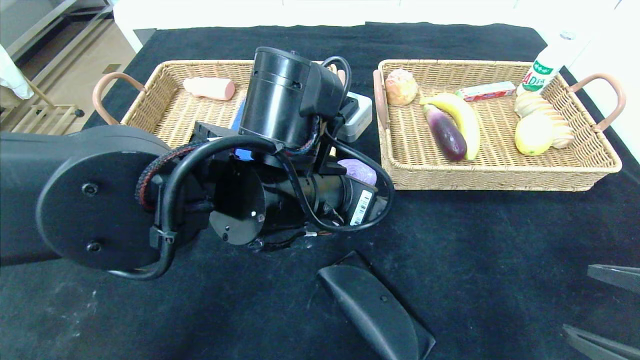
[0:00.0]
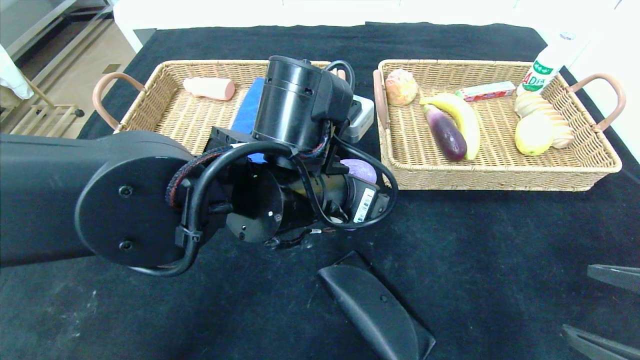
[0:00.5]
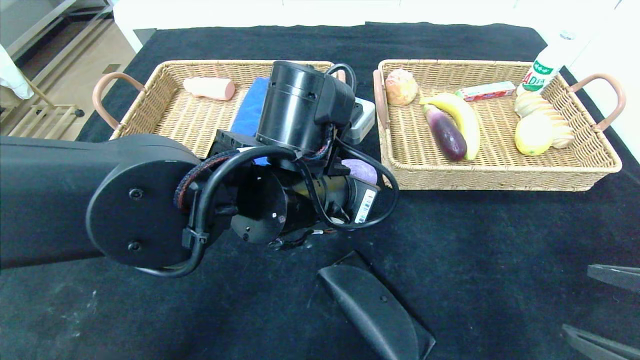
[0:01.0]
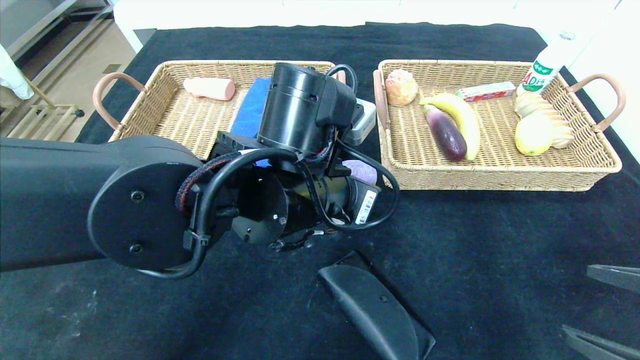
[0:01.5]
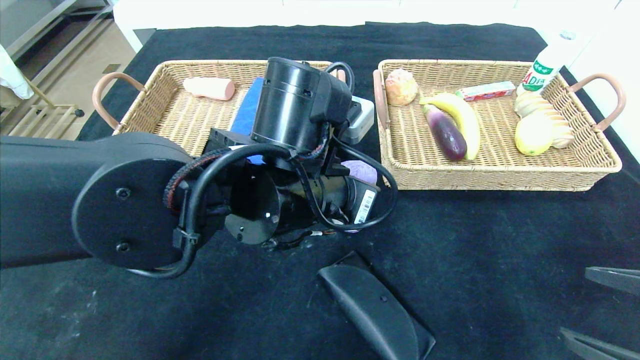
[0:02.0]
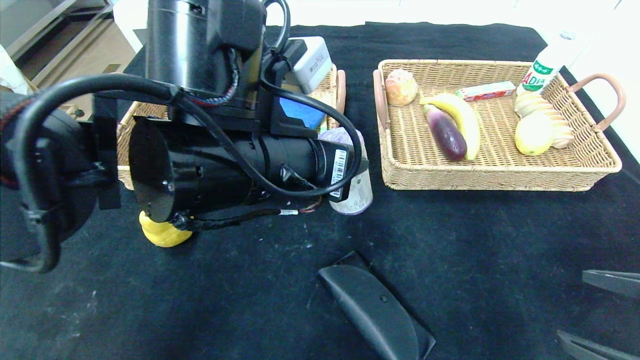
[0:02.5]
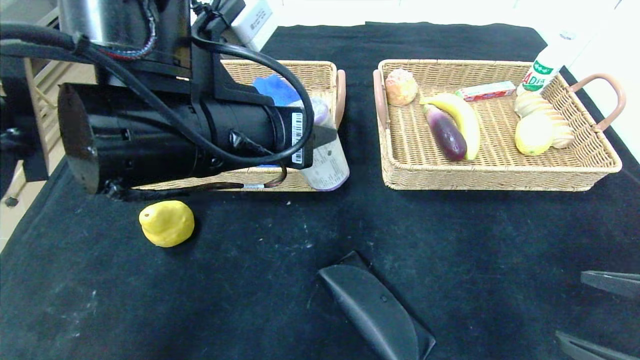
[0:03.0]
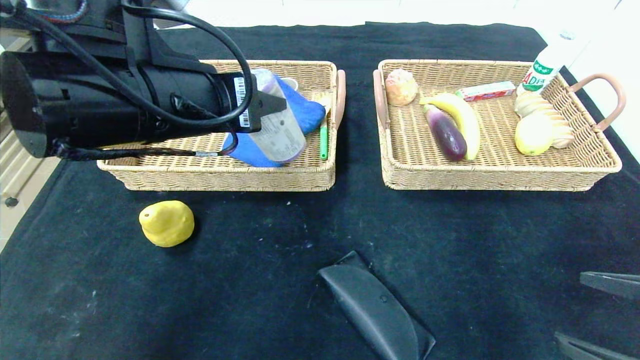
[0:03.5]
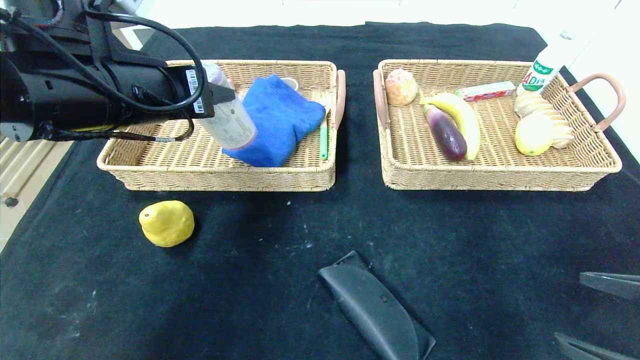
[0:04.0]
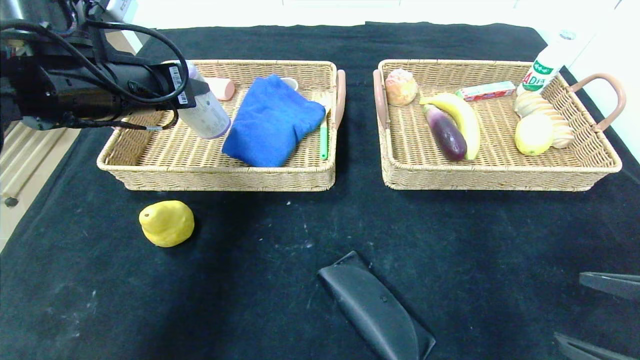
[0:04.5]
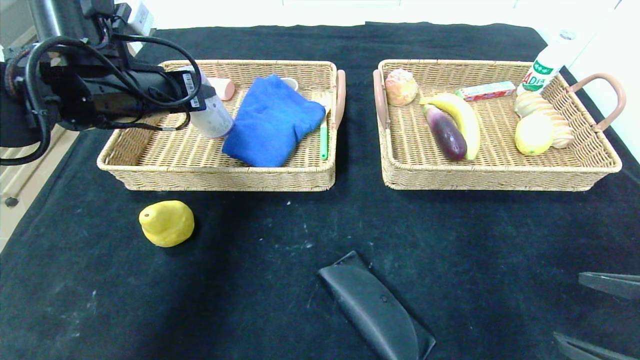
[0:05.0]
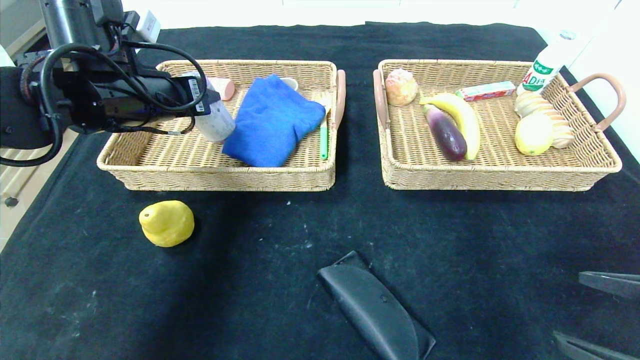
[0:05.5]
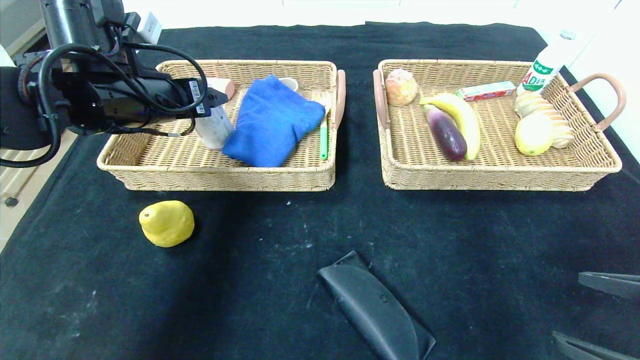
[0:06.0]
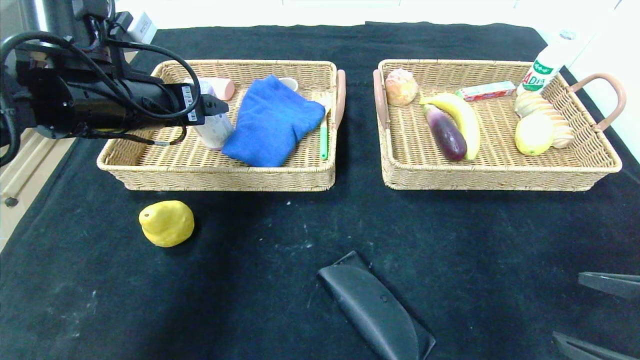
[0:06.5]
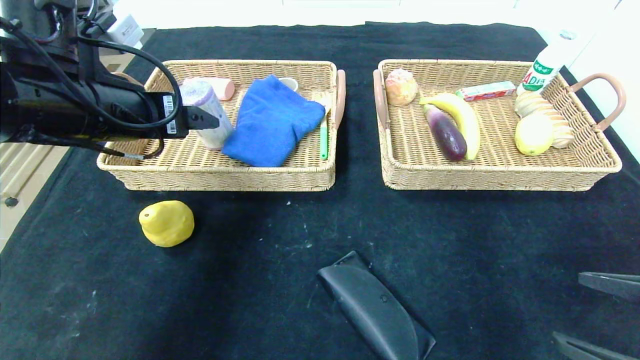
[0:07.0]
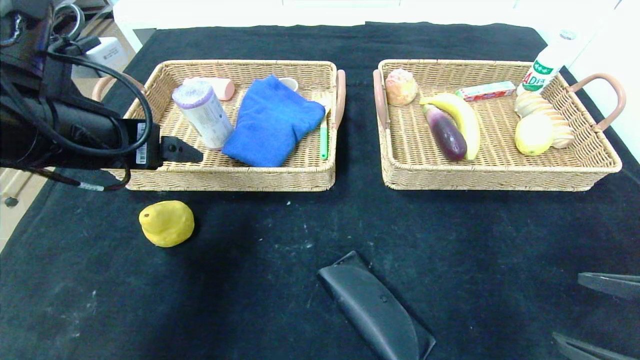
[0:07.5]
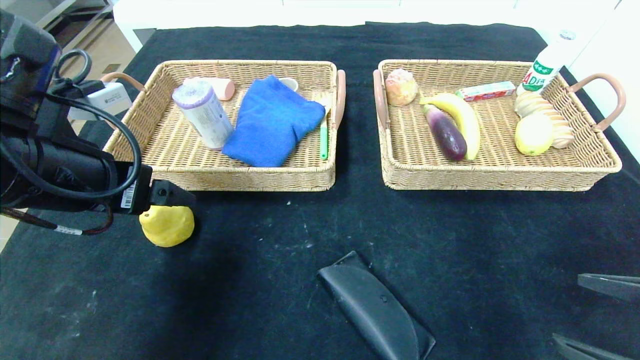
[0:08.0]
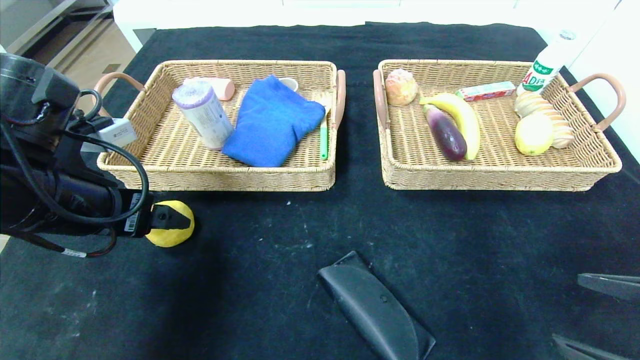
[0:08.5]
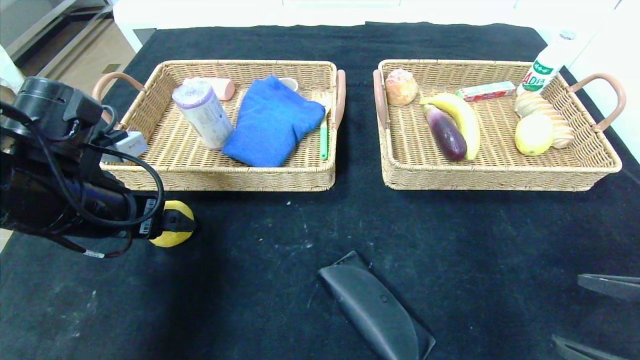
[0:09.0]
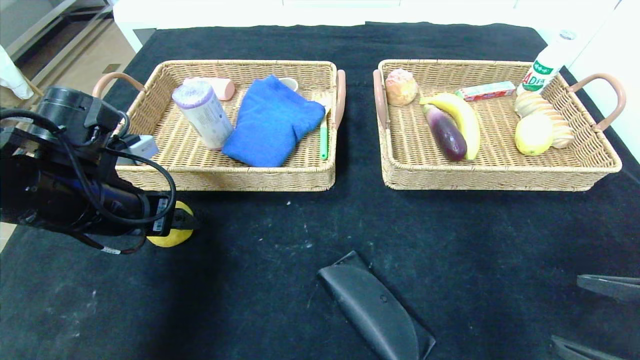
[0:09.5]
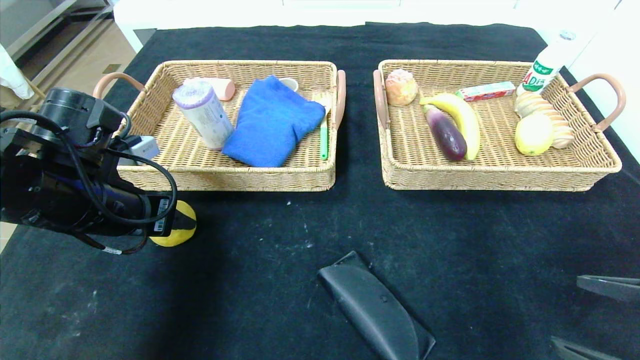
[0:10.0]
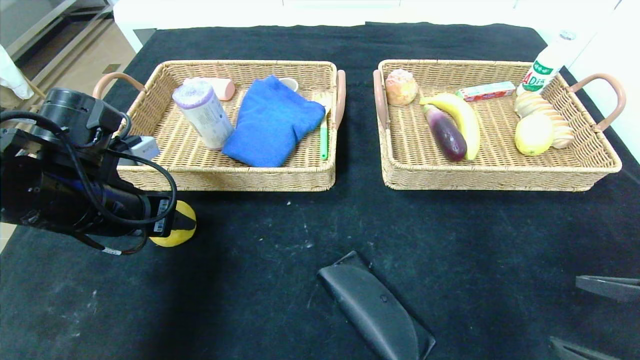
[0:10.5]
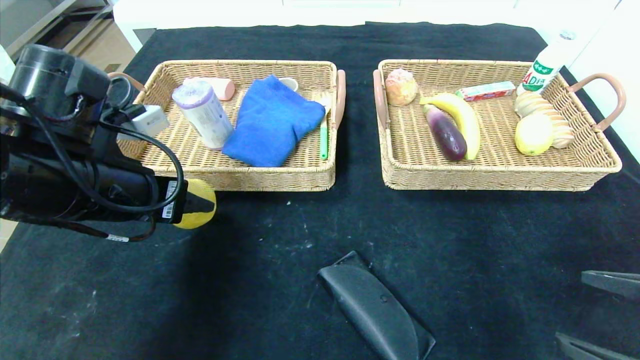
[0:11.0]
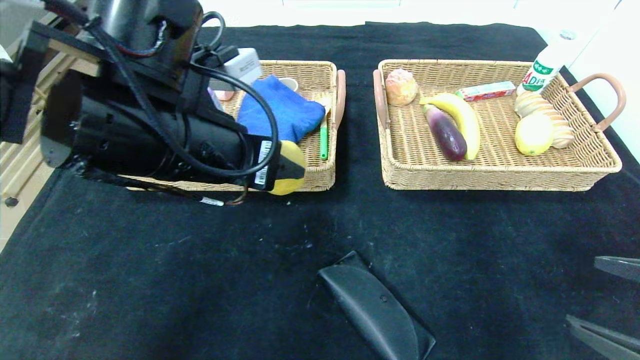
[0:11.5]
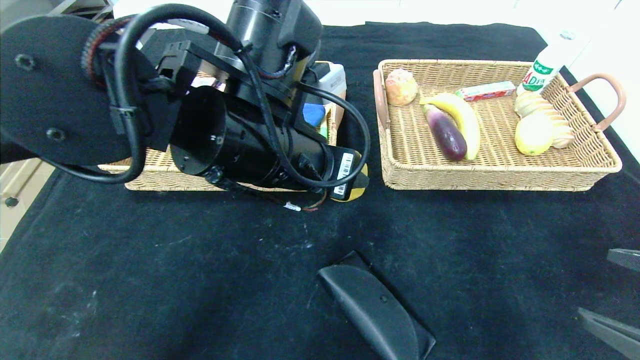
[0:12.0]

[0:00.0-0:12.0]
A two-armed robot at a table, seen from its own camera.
Step, 0:00.0 to 0:07.5: Pick up the purple garbage bag and put it in the left basket.
0:00.0 to 0:02.0: The left gripper closes.
0:02.0 to 0:04.0: The left gripper is displaced to the left and upward by approximately 20 cm.
0:04.0 to 0:06.0: The left gripper travels forward by some 5 cm, and opens up.
0:06.0 to 0:08.0: The left gripper shifts approximately 10 cm backward.
0:08.0 to 0:10.0: The left gripper travels downward by approximately 5 cm, and closes up.
0:10.0 to 0:12.0: The left gripper shifts roughly 20 cm to the right.

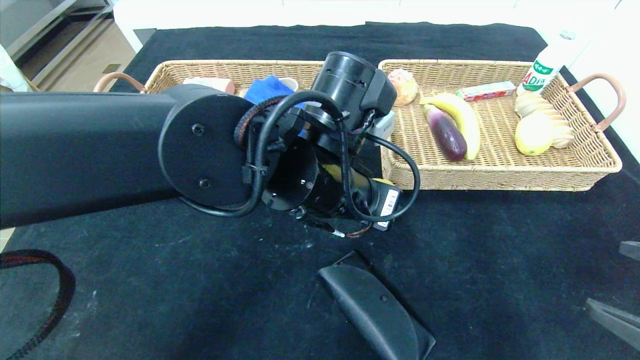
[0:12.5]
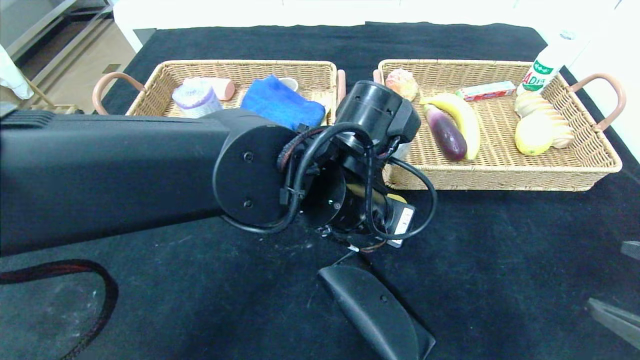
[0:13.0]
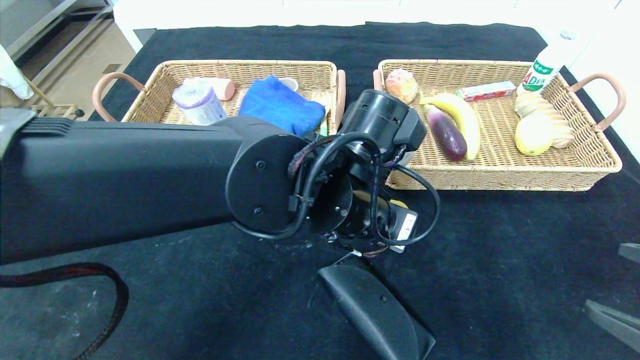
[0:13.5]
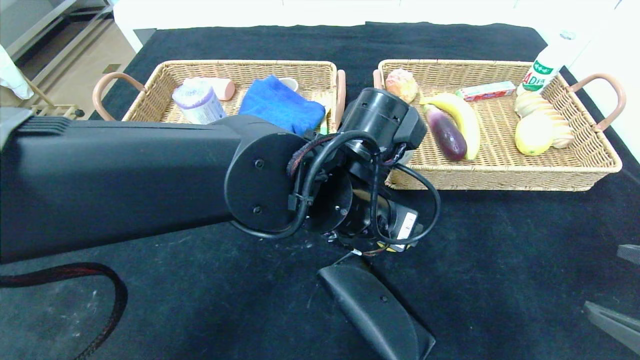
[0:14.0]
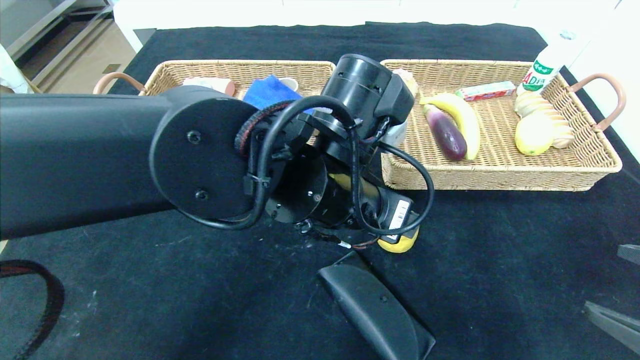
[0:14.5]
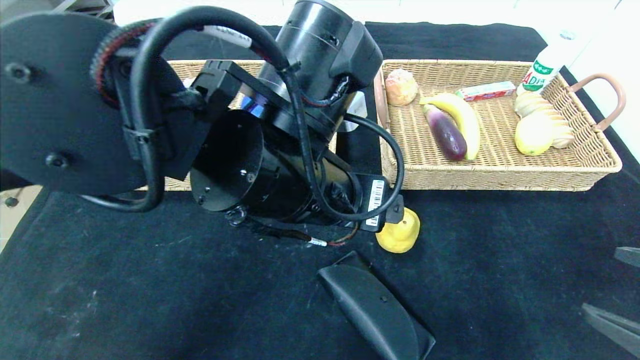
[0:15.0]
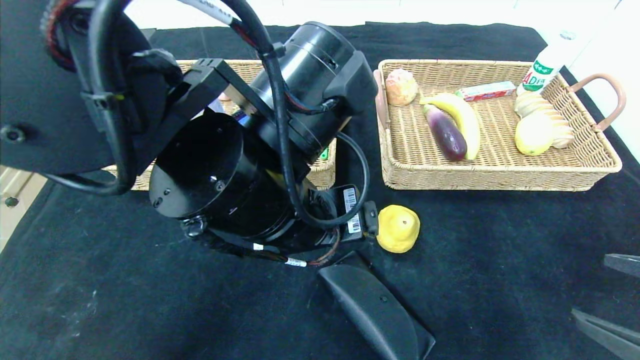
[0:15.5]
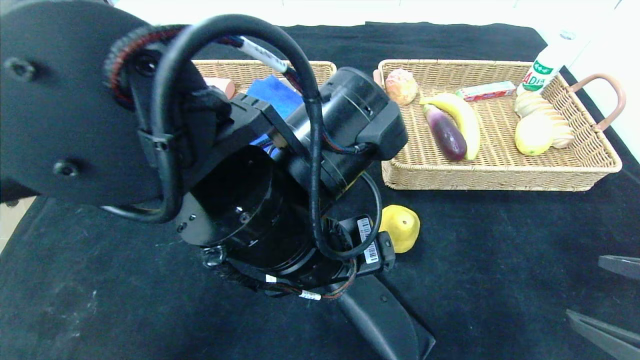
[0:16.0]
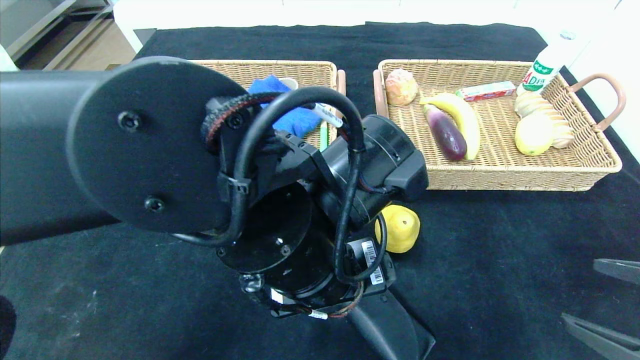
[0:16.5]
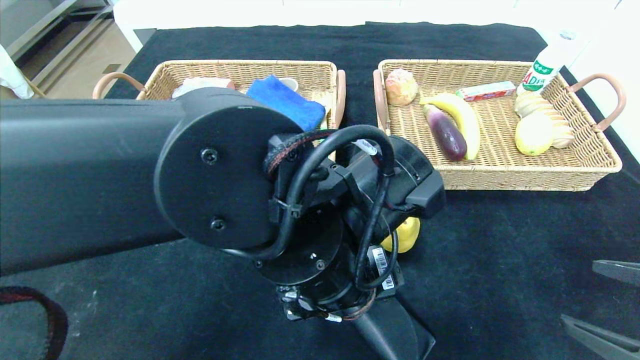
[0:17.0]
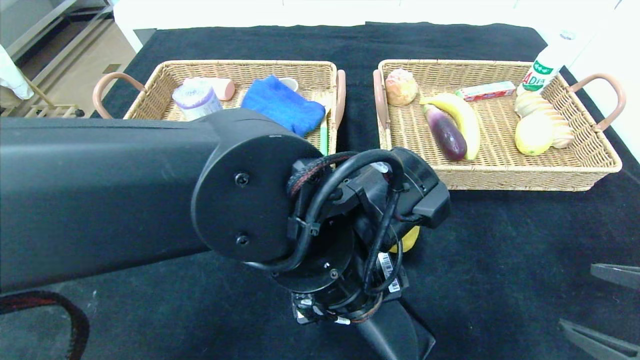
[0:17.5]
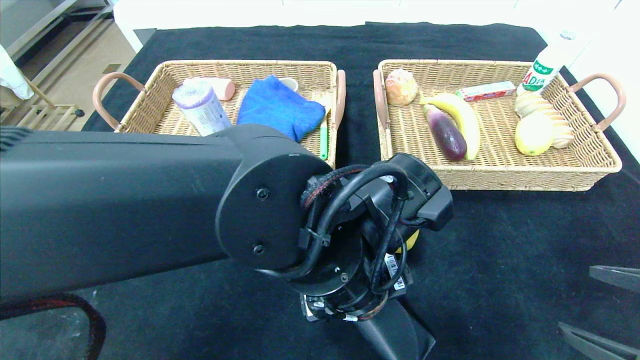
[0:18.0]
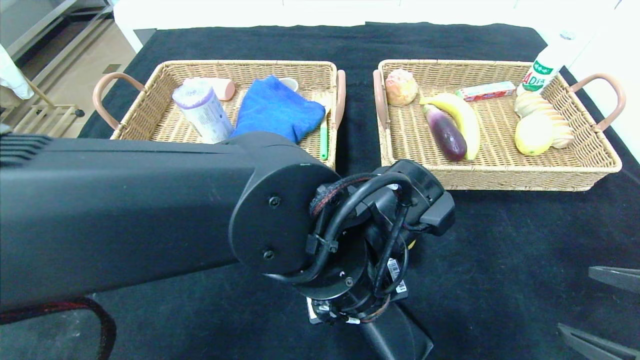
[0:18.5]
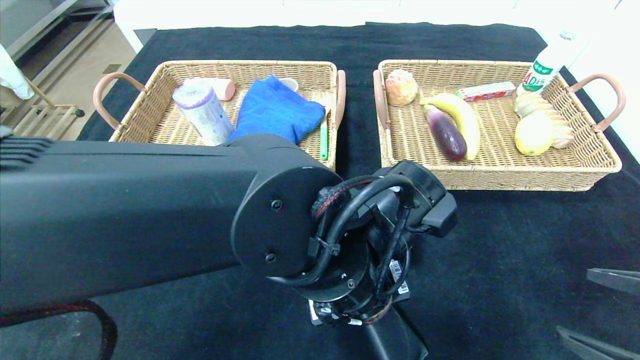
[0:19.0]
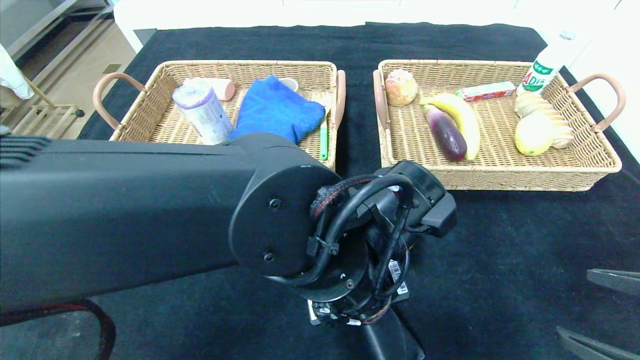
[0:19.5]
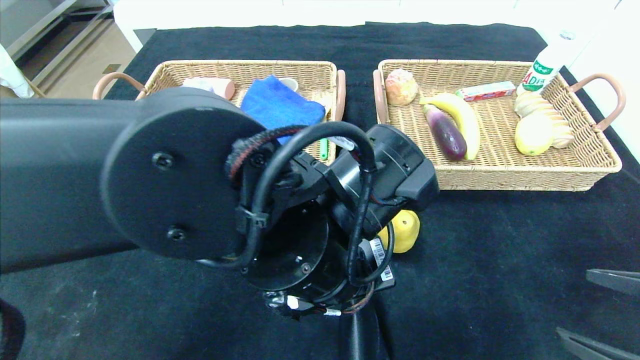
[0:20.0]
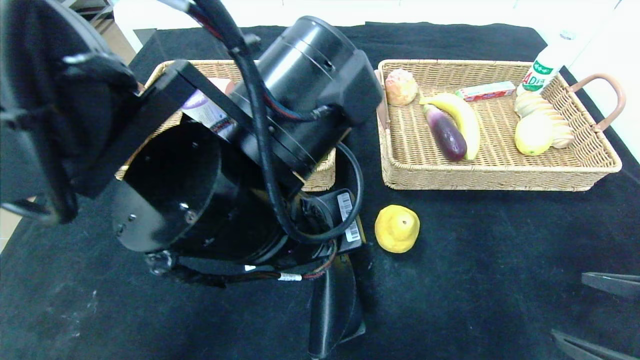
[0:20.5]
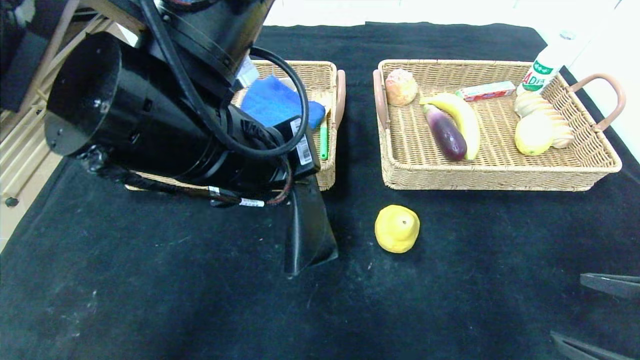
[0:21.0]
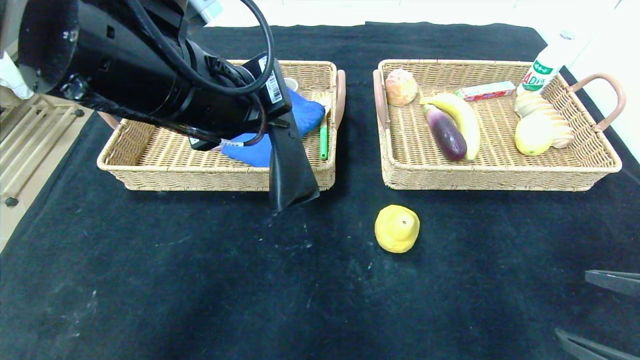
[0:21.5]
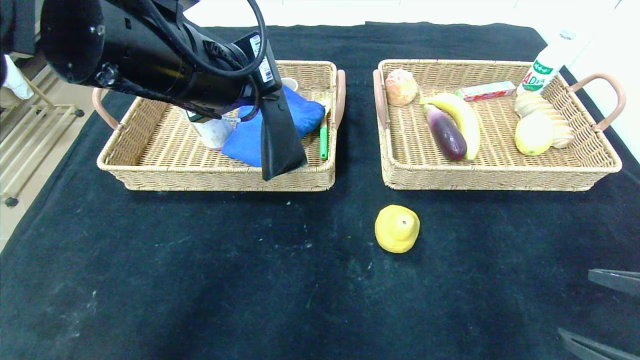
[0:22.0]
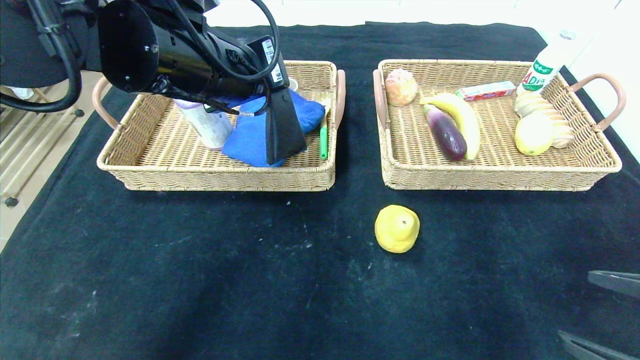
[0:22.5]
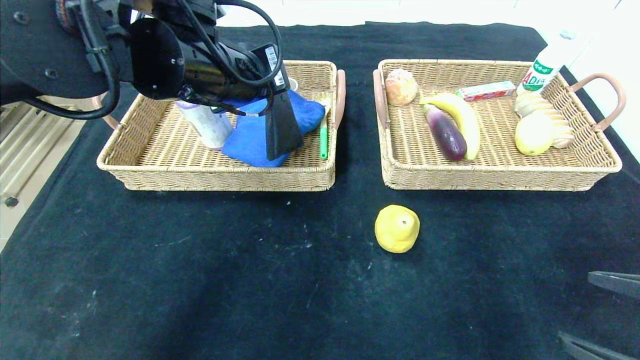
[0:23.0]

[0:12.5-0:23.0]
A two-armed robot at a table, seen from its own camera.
0:12.5 to 0:14.5: The left gripper opens its fingers.
0:14.5 to 0:16.5: The left gripper heads backward, covering approximately 5 cm.
0:16.5 to 0:19.0: The left gripper shifts by approximately 5 cm, and closes its fingers.
0:19.0 to 0:21.0: The left gripper shifts roughly 15 cm upward and to the left.
0:21.0 to 0:23.0: The left gripper travels forward by approximately 10 cm.
